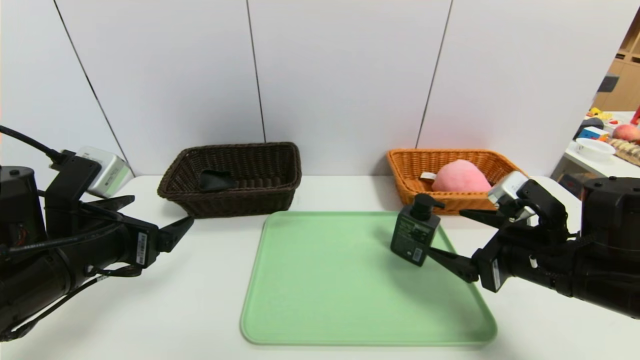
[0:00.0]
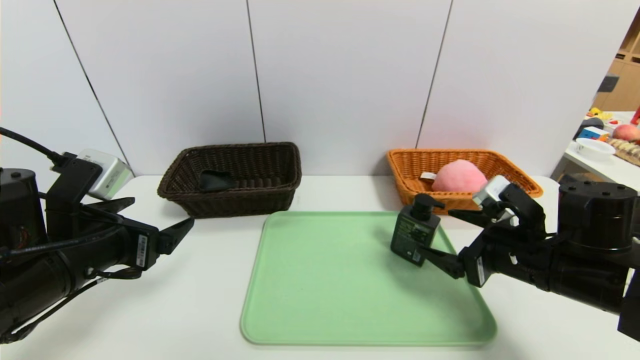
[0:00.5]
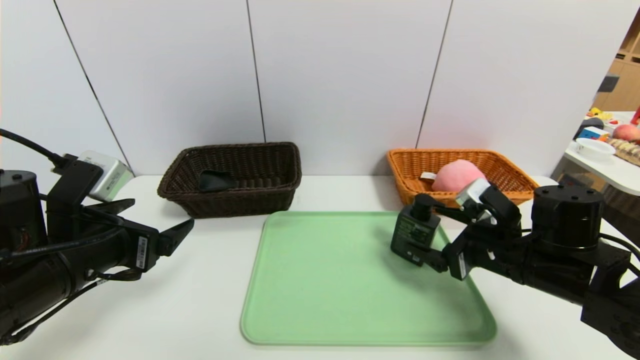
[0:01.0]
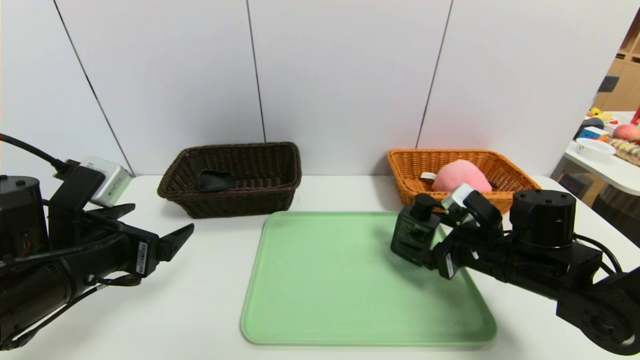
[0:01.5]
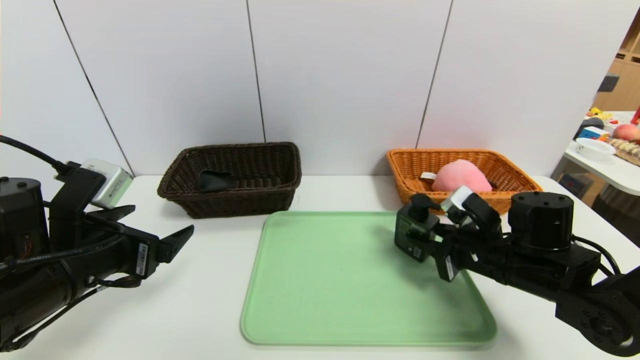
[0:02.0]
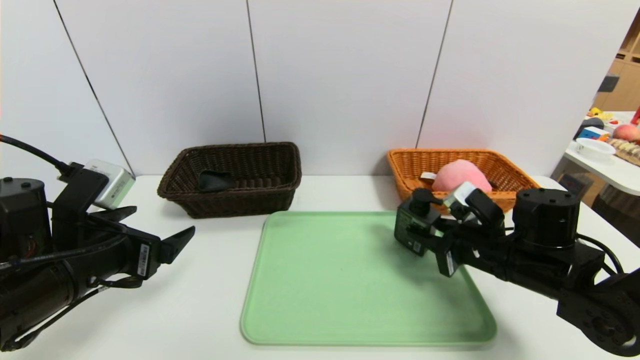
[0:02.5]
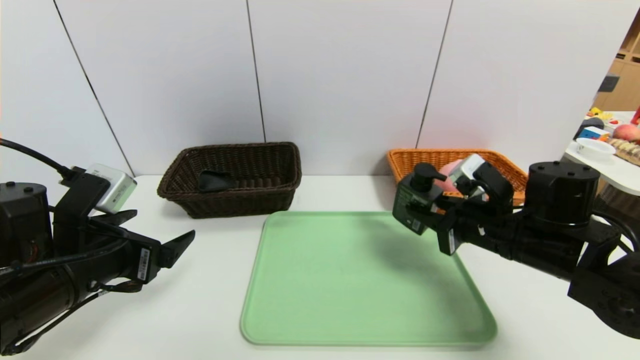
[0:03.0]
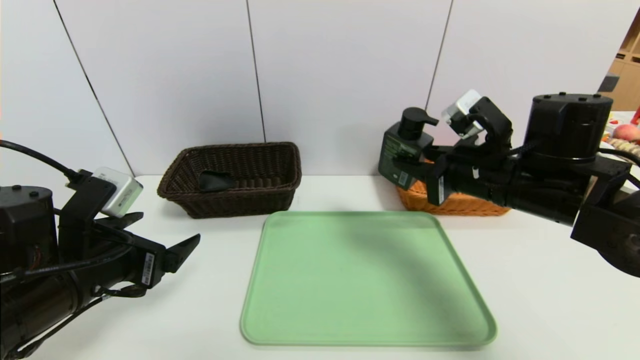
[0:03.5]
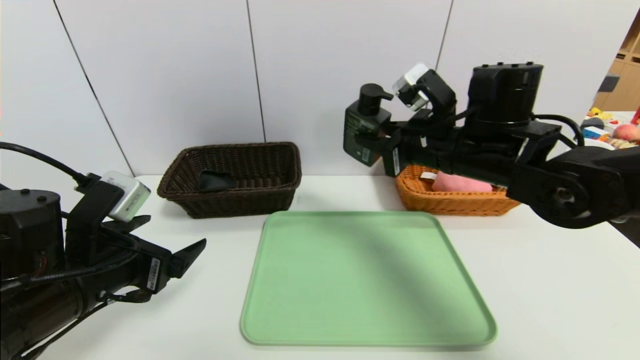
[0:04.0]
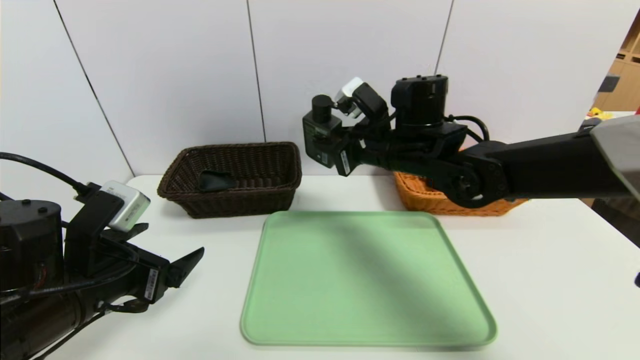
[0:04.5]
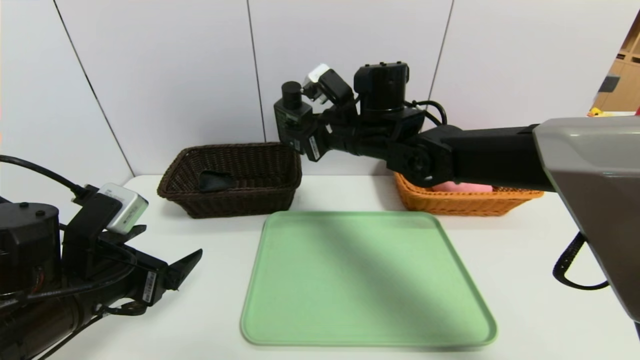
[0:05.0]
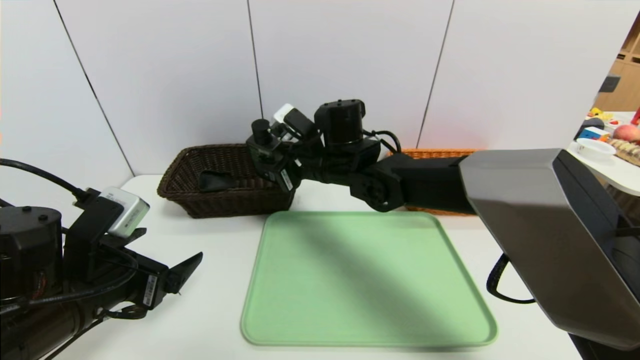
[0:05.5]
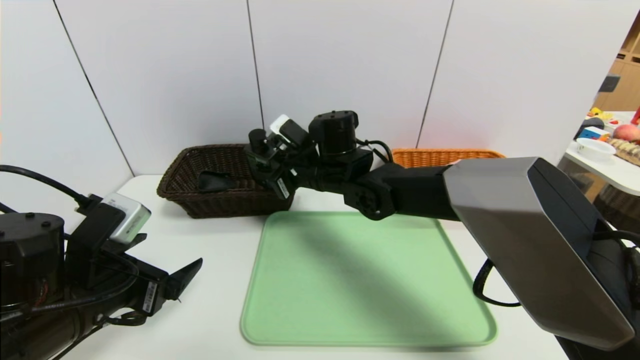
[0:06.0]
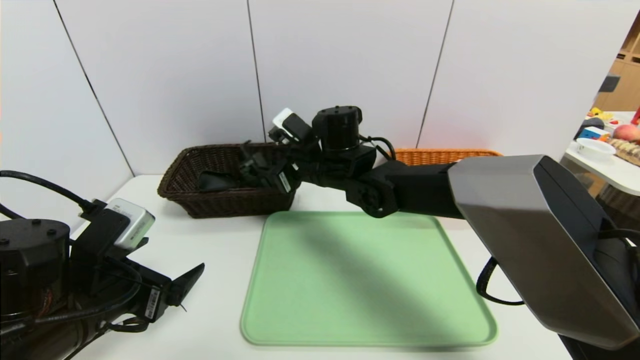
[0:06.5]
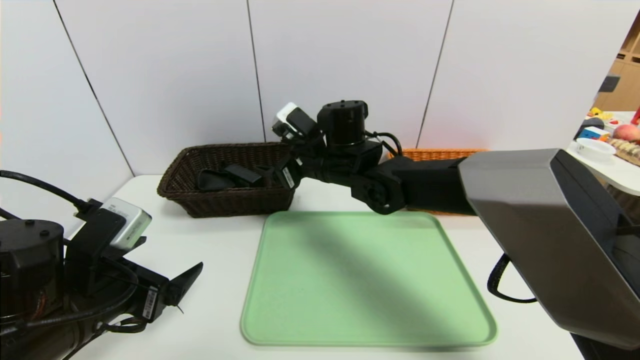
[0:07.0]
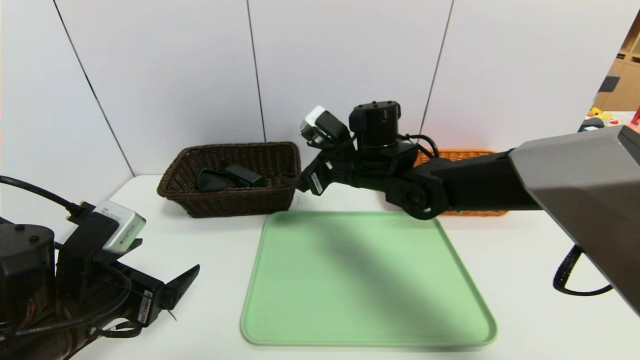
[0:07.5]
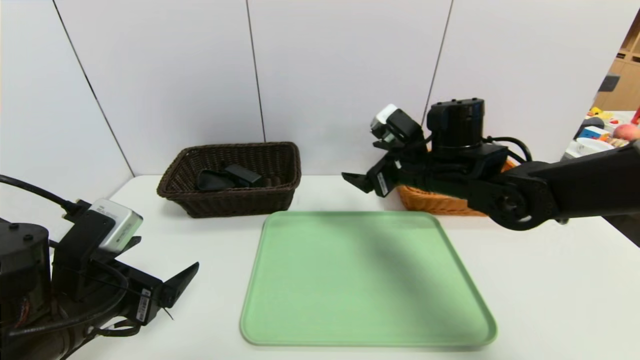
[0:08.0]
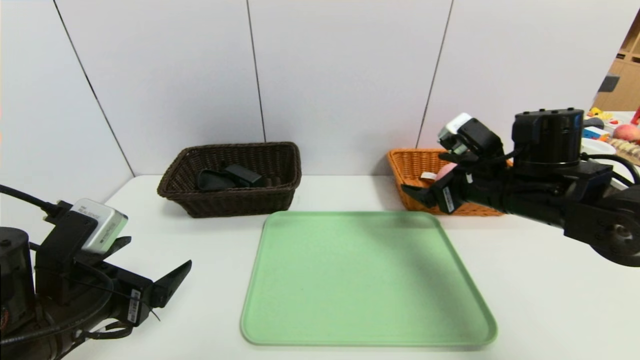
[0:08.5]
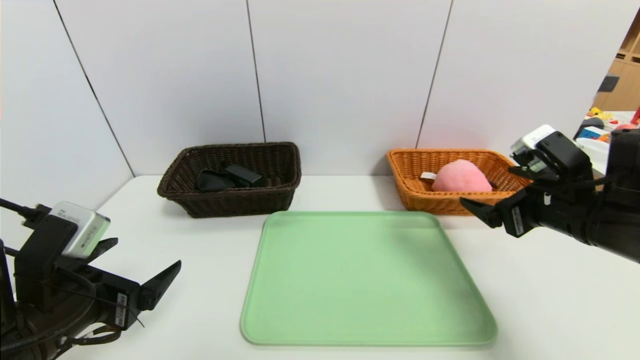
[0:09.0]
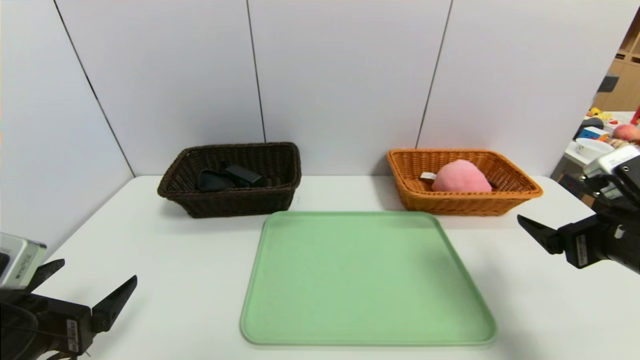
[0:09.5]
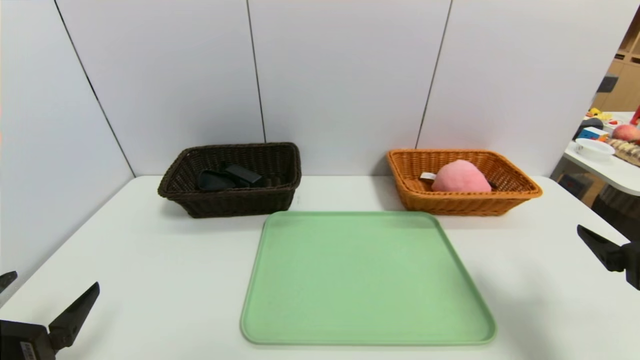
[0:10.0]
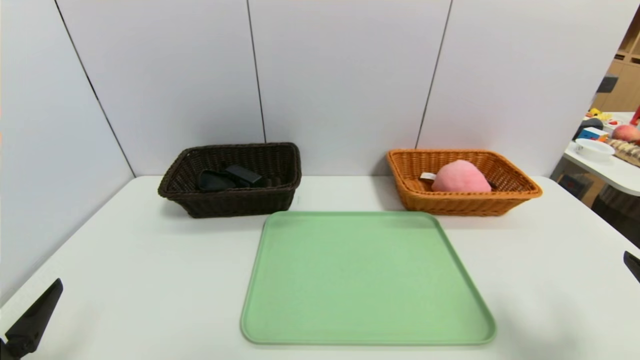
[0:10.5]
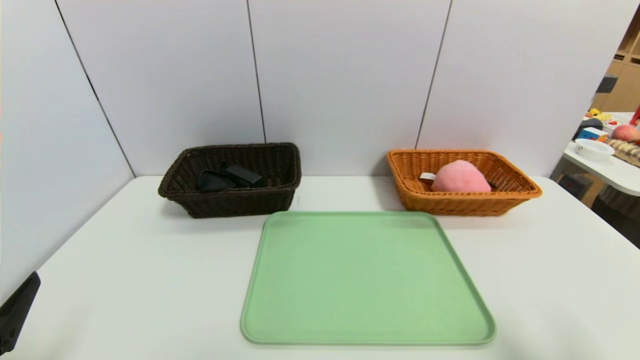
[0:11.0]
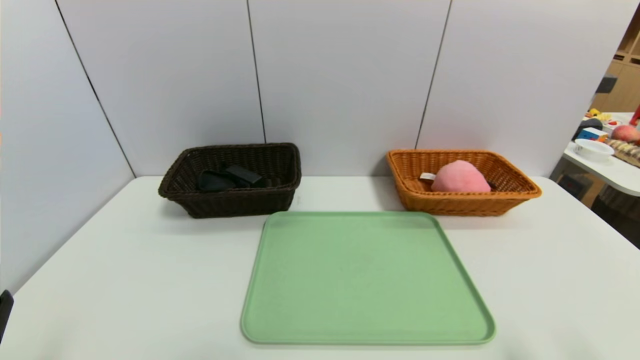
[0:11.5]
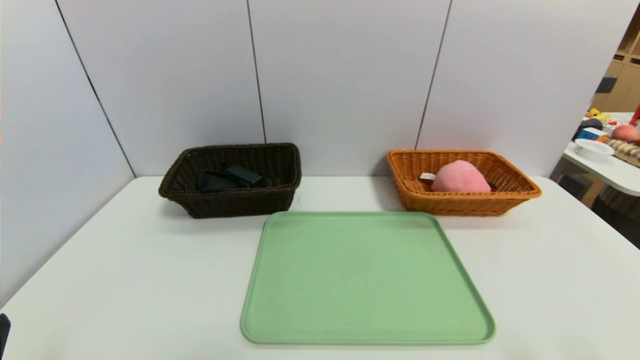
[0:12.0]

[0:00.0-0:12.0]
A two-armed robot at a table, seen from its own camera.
Task of the whole recording: place the food in the right basket with the right gripper, and place the non food items in the left basket with the left gripper.
0:00.0 to 0:02.0: The right gripper shifts approximately 10 cm forward and downward, and closes up.
0:02.0 to 0:04.0: The right gripper heads upward and to the left, covering some 15 cm.
0:04.0 to 0:06.0: The right gripper goes some 20 cm to the left, forward and downward.
0:06.0 to 0:08.0: The right gripper travels to the right by some 15 cm, and opens.
0:08.0 to 0:10.0: The left gripper moves backward and to the left, some 10 cm; the right gripper moves backward and to the right, about 30 cm.
0:10.0 to 0:12.0: The right gripper shifts some 15 cm backward. The left gripper travels backward by roughly 5 cm.
